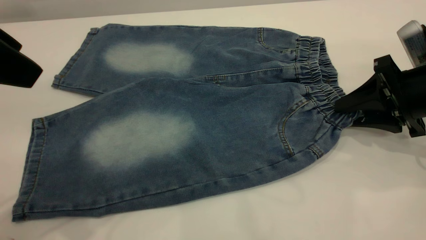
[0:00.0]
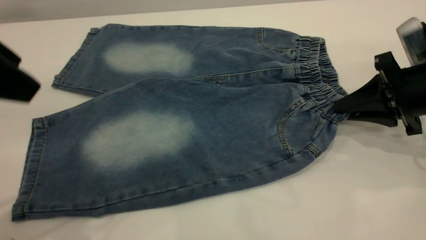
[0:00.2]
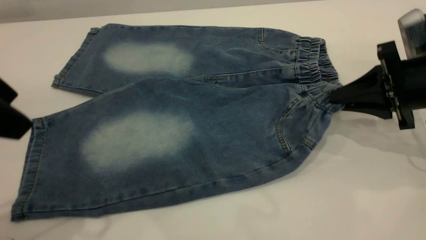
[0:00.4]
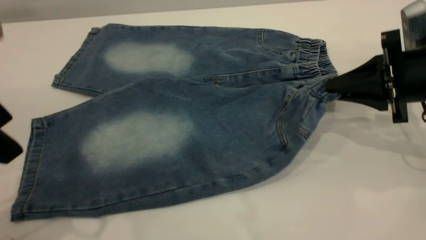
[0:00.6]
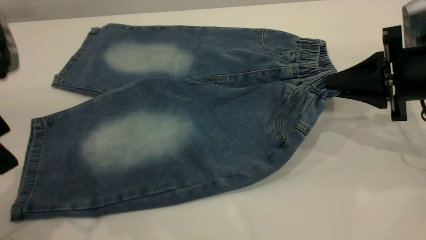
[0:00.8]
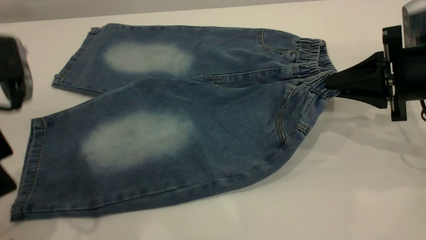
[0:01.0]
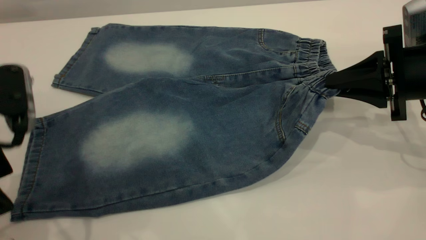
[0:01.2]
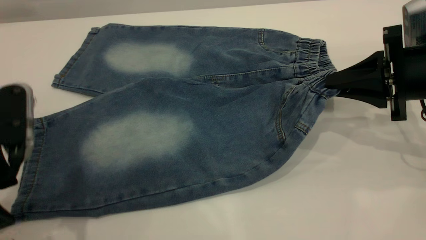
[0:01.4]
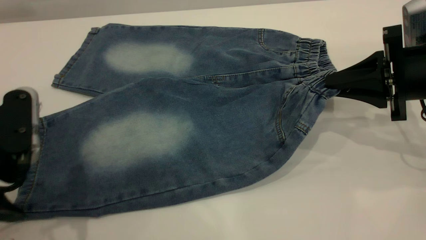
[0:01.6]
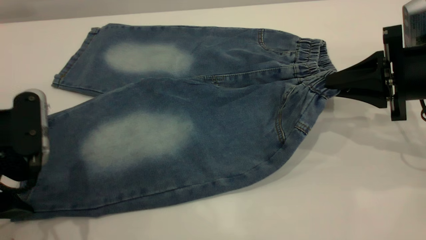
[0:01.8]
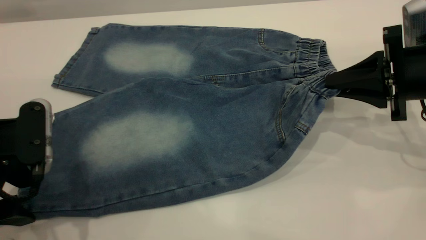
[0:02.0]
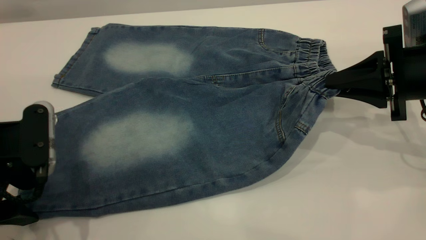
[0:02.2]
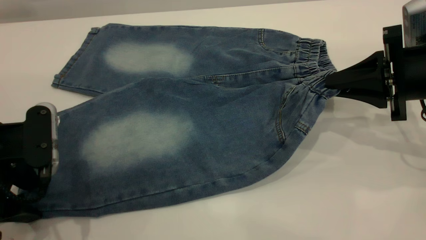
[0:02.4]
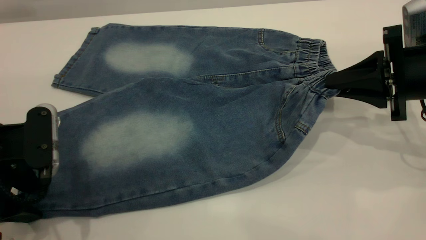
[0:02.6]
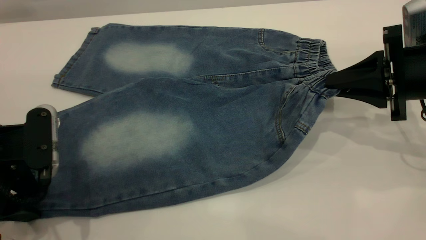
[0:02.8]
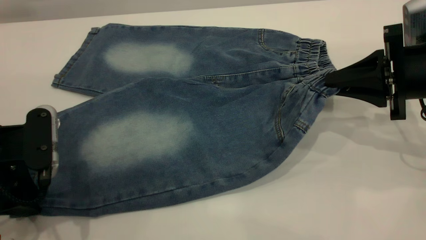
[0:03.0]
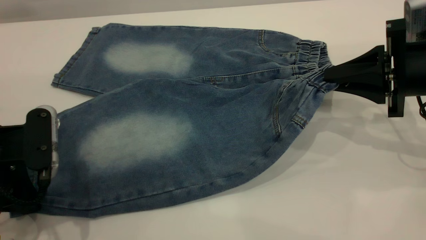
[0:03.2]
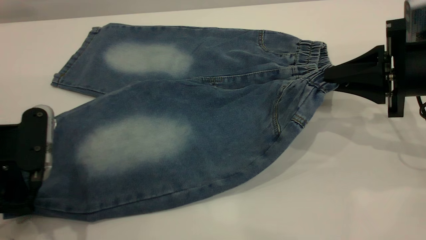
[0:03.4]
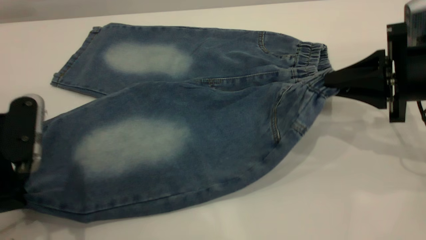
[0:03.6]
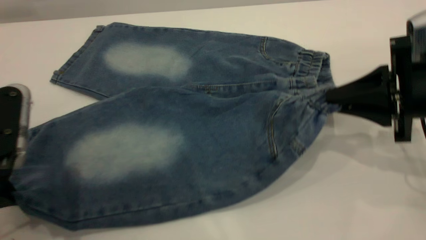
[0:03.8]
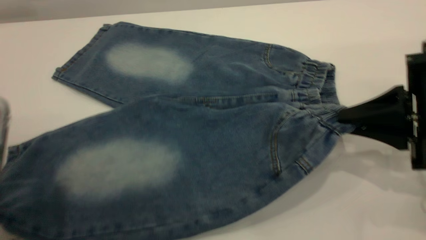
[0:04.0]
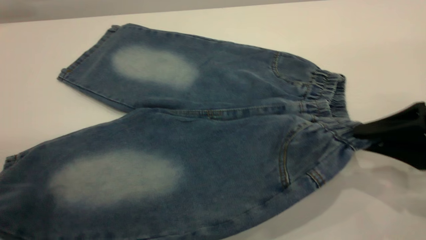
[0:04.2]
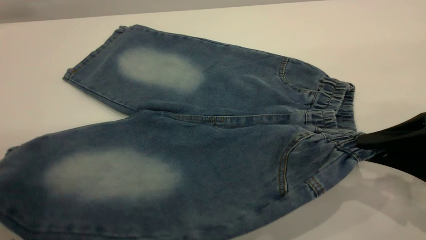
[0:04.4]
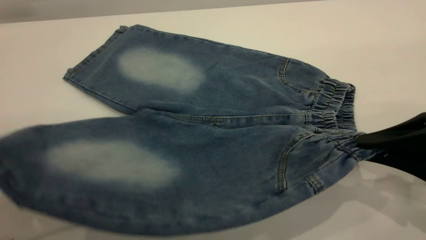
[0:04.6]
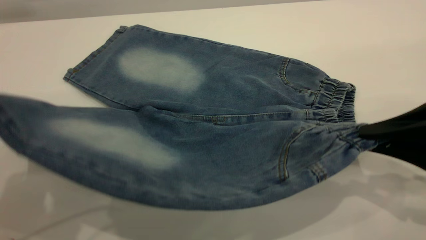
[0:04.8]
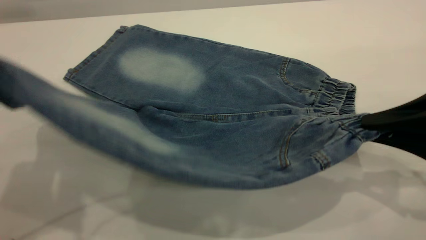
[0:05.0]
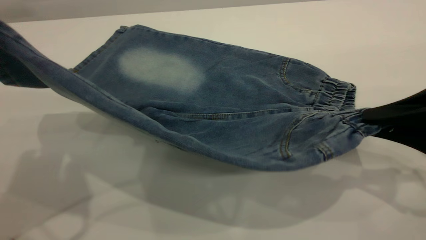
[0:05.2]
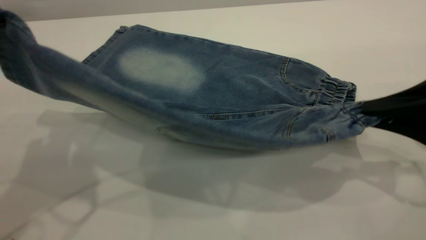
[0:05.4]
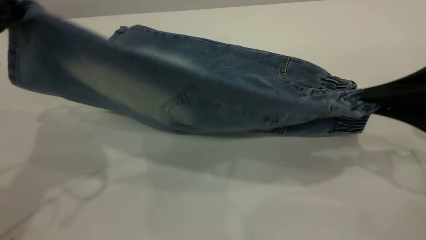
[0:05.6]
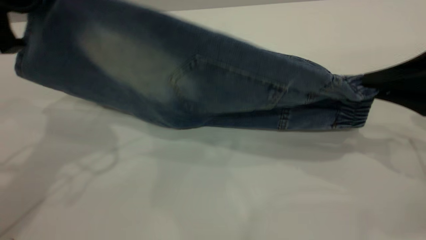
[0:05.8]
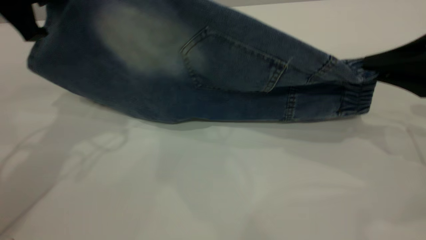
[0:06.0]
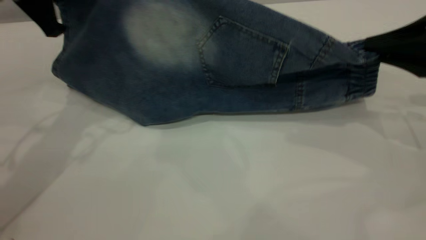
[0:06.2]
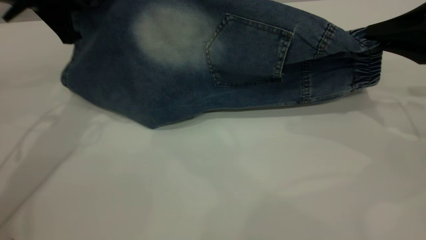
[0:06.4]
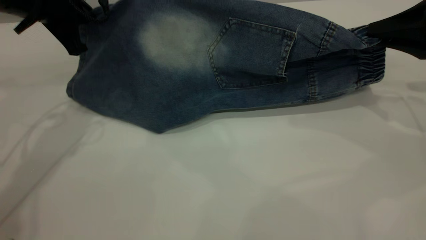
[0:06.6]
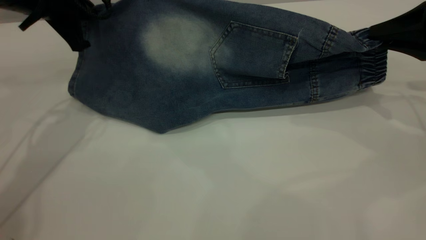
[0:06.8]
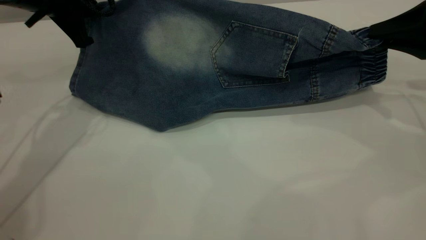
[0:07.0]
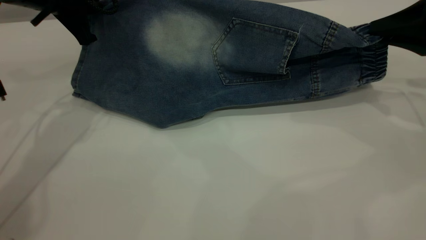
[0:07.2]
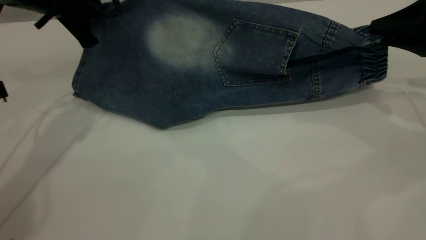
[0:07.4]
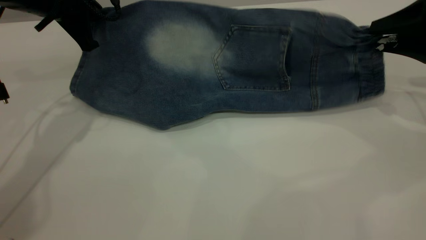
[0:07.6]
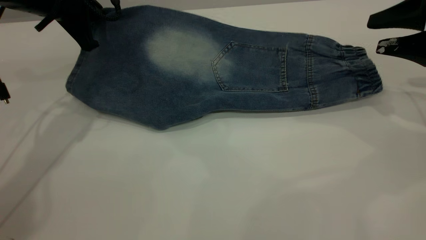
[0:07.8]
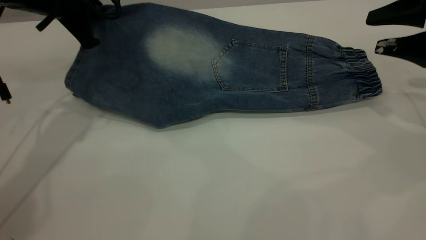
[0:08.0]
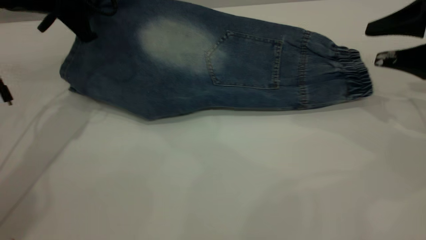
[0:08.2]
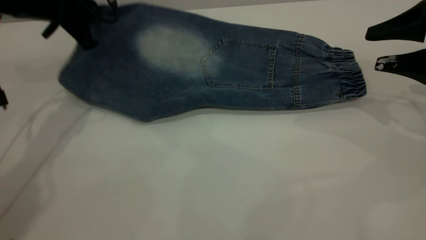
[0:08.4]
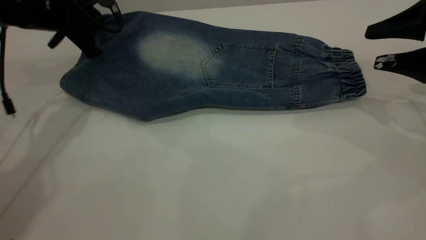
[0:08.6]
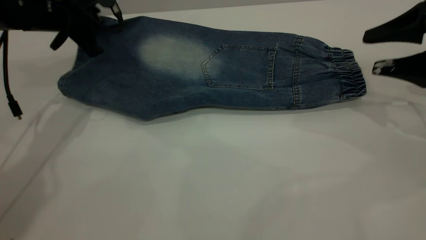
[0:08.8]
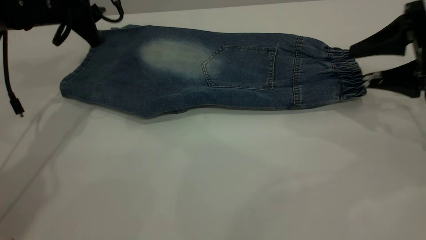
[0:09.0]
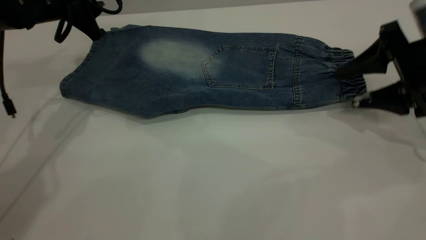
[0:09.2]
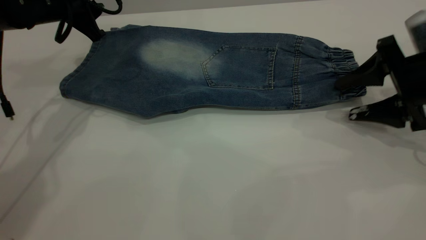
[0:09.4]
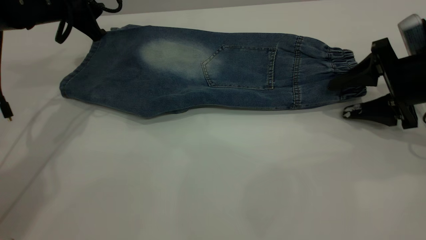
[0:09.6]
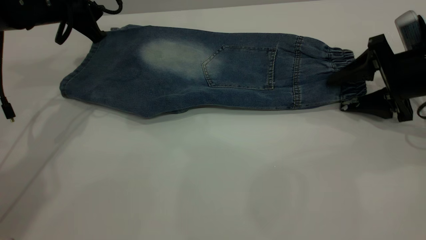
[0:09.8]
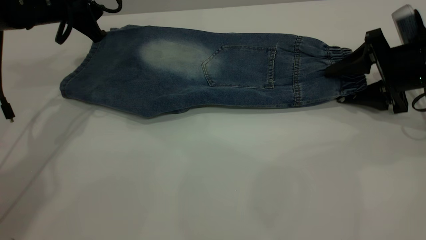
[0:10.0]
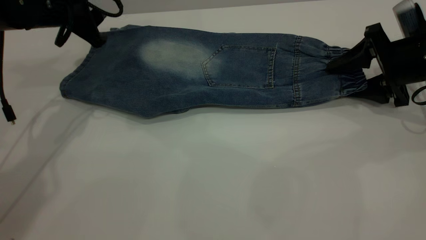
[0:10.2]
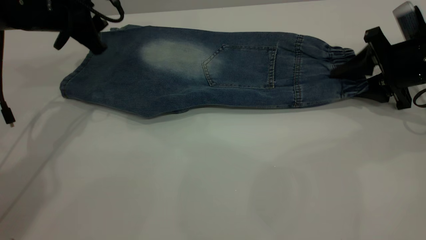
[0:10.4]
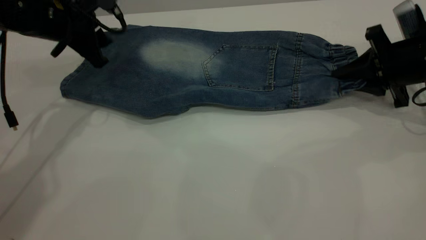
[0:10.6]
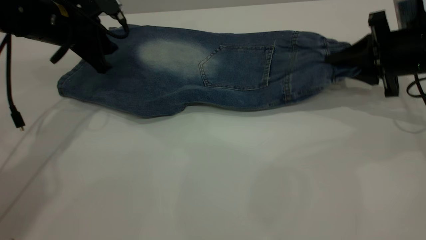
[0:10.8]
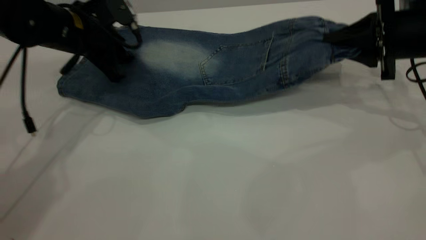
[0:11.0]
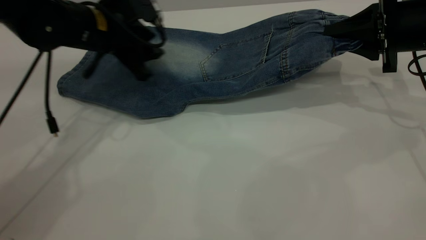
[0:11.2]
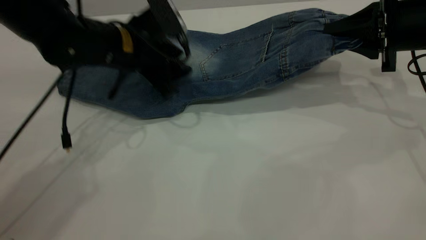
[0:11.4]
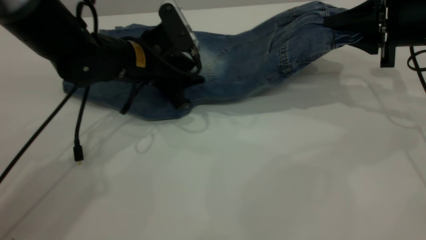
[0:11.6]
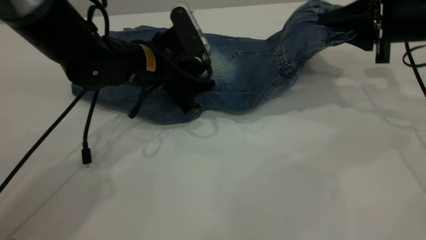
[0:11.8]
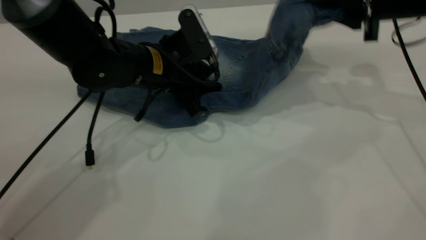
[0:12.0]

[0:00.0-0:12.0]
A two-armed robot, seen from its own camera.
Step, 0:00.0 to 0:09.0: Fold the bottom of the pants upward.
0:00.0 to 0:01.6: The right gripper closes up; the left gripper is displaced downward by some 15 cm.
0:01.6 to 0:03.0: The left gripper closes its fingers.
0:03.0 to 0:04.4: The left gripper shifts roughly 10 cm upward and backward. Meanwhile the right gripper goes approximately 10 cm backward.
0:04.4 to 0:06.0: The left gripper heads forward, covering approximately 20 cm; the right gripper moves forward, approximately 10 cm.
0:06.0 to 0:07.6: The left gripper heads forward and downward, covering about 10 cm; the right gripper moves forward, approximately 5 cm, and opens up.
0:07.6 to 0:09.0: The left gripper opens.
0:09.0 to 0:10.4: The right gripper is displaced downward by approximately 5 cm, and closes up.
0:10.4 to 0:12.0: The right gripper is displaced upward and to the left by approximately 10 cm, and closes up, while the left gripper heads to the right, downward and backward, covering roughly 20 cm.

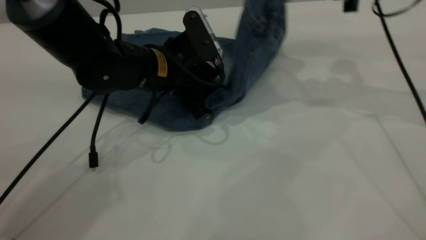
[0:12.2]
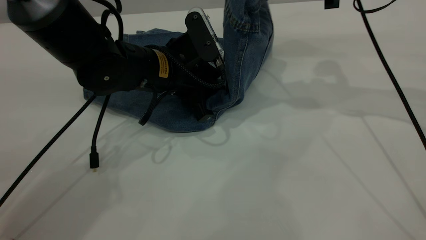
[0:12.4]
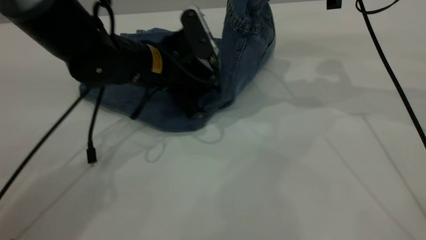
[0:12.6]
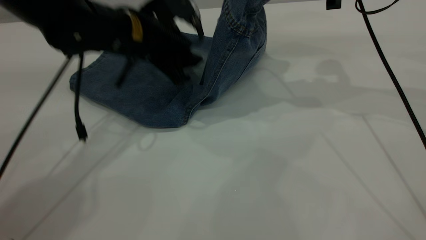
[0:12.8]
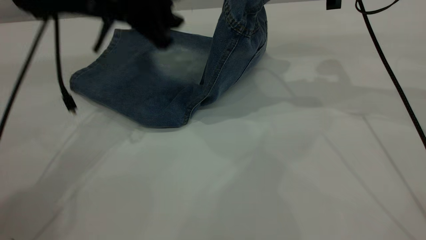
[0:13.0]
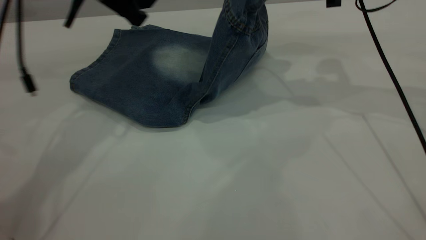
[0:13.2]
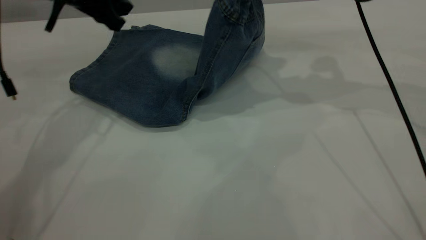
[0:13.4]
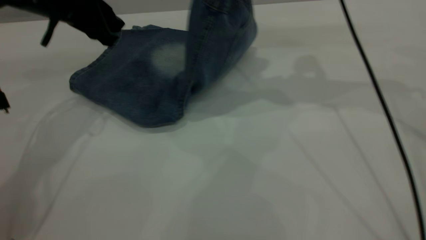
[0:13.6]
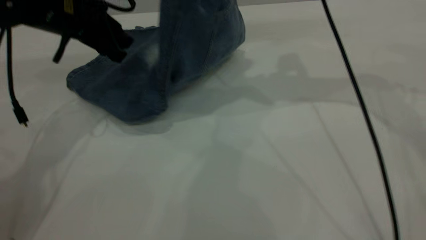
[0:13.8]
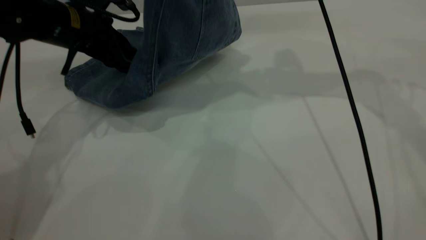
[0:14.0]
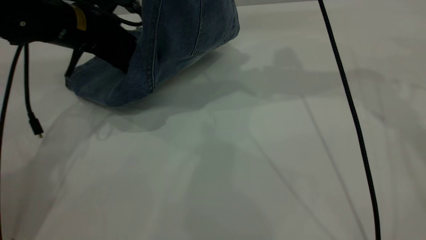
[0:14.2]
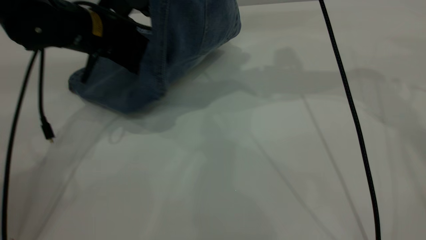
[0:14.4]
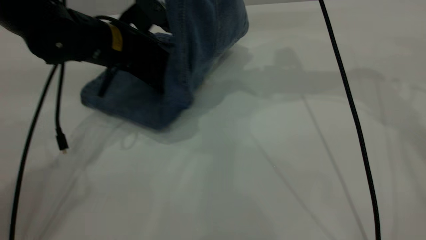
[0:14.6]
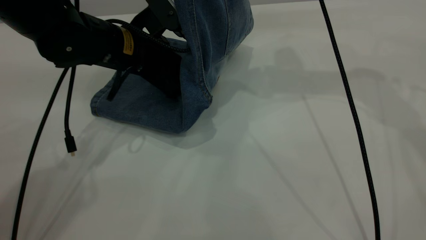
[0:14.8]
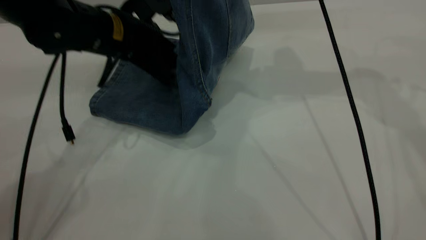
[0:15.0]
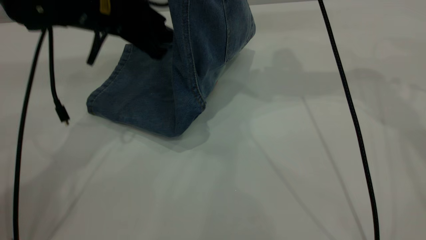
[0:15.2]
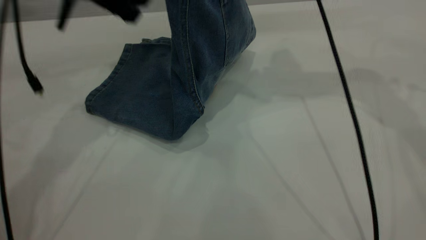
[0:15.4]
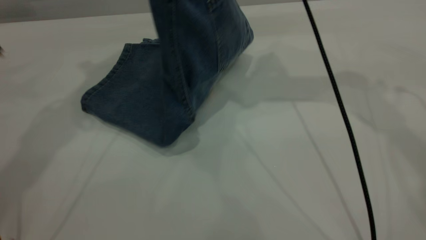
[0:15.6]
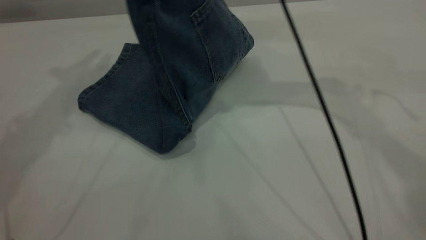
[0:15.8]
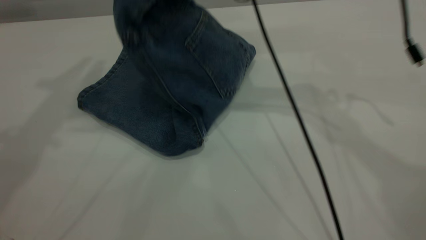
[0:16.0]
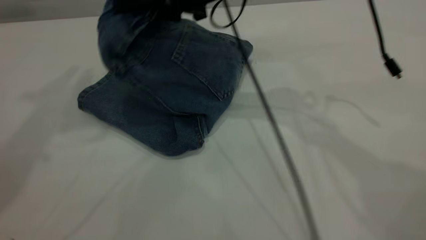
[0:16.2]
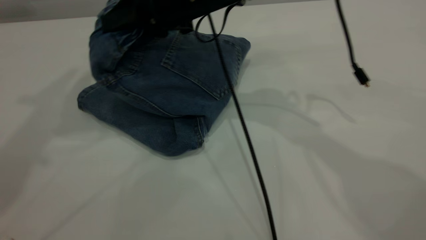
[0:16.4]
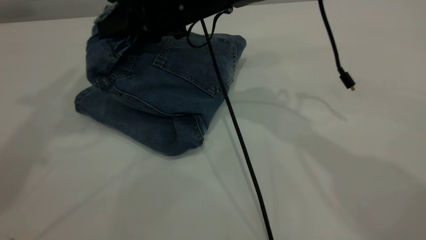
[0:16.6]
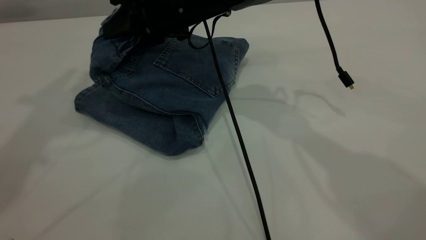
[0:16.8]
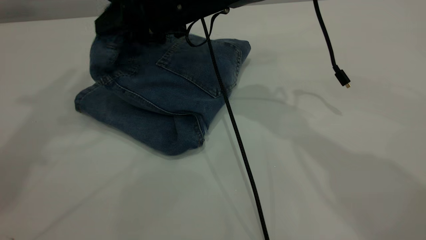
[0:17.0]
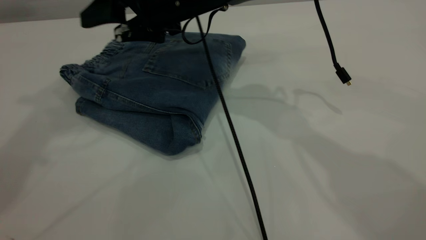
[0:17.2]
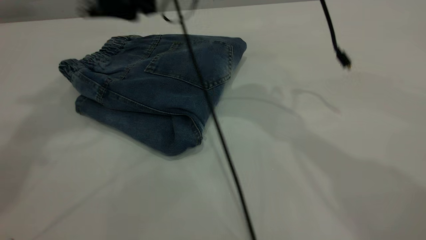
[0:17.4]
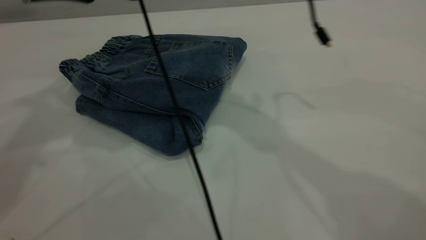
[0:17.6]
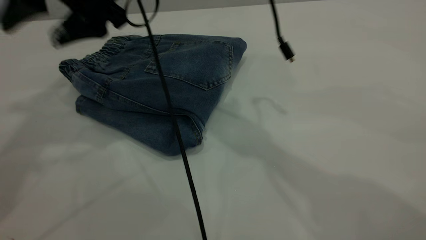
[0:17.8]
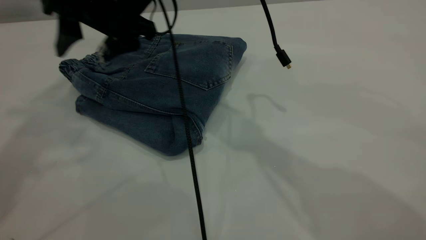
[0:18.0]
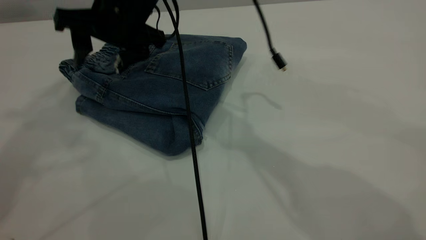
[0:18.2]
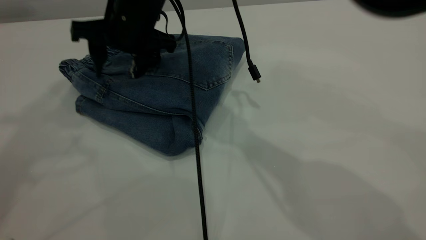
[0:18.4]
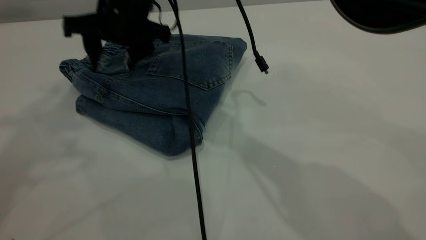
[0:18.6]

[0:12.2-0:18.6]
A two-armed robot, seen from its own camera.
Step, 0:12.2 to 0:17.2: Fold your pants from right to left.
0:12.2 to 0:13.8: The left gripper heads to the left, upward and forward, covering roughly 15 cm; the right gripper heads to the left and upward, covering about 10 cm.
0:13.8 to 0:15.4: The left gripper goes some 10 cm upward.
0:15.4 to 0:17.0: The left gripper travels upward by roughly 25 cm. Meanwhile the right gripper goes some 20 cm to the left and downward, and opens up.
0:17.0 to 0:18.6: The right gripper travels to the left by approximately 10 cm, and travels upward and back again, some 10 cm each way; the left gripper changes place by approximately 5 cm.
